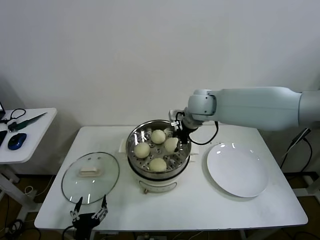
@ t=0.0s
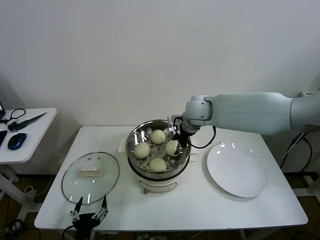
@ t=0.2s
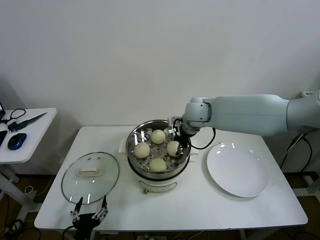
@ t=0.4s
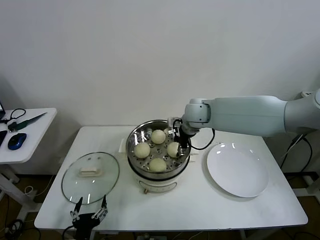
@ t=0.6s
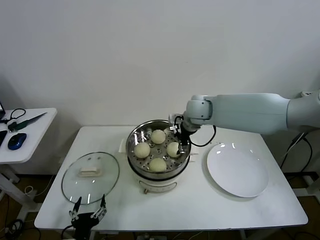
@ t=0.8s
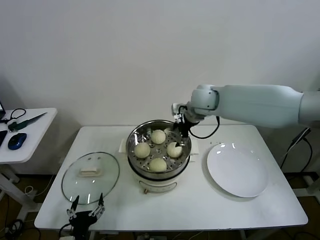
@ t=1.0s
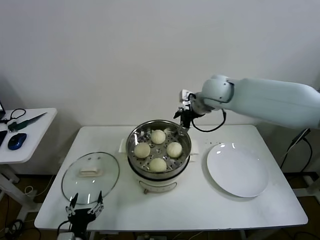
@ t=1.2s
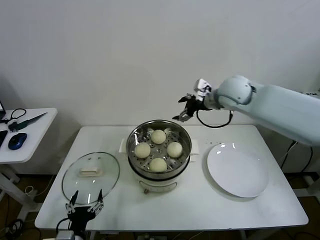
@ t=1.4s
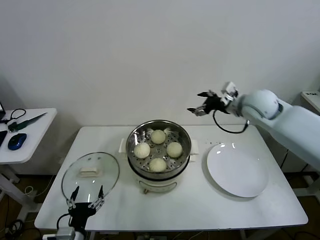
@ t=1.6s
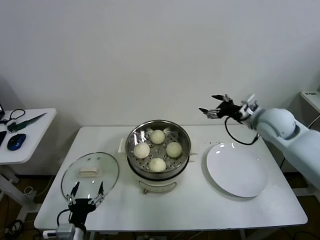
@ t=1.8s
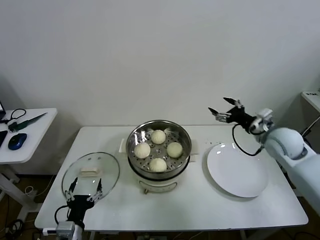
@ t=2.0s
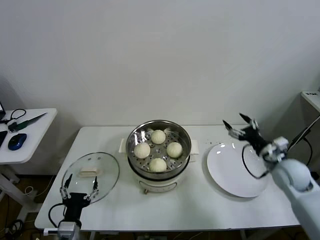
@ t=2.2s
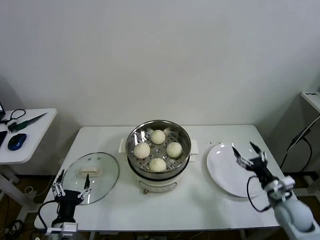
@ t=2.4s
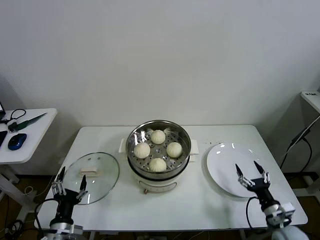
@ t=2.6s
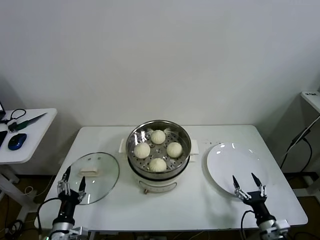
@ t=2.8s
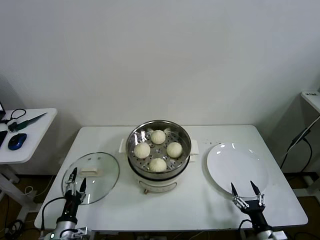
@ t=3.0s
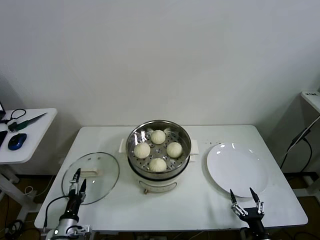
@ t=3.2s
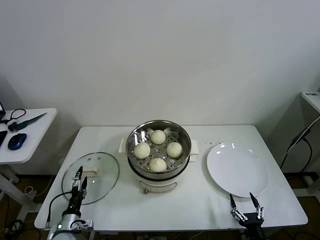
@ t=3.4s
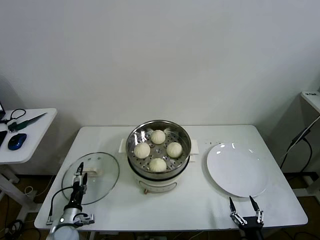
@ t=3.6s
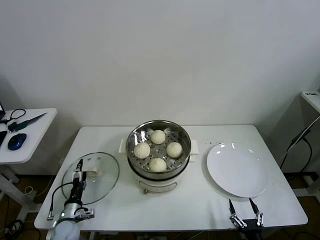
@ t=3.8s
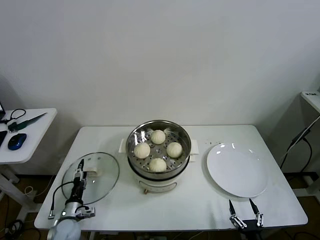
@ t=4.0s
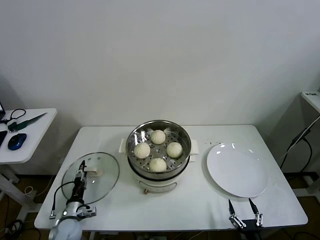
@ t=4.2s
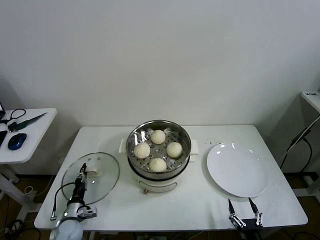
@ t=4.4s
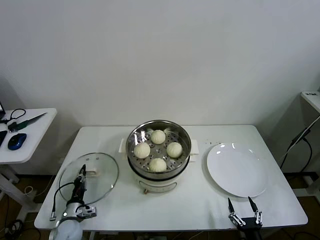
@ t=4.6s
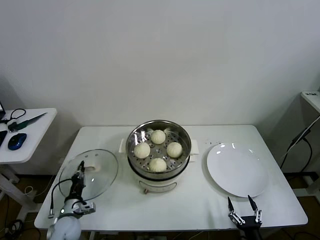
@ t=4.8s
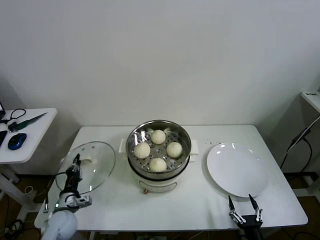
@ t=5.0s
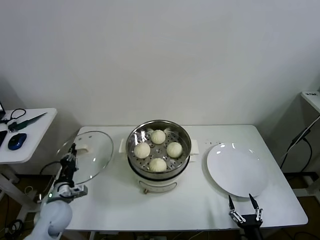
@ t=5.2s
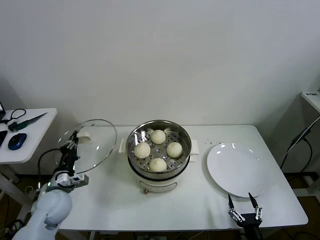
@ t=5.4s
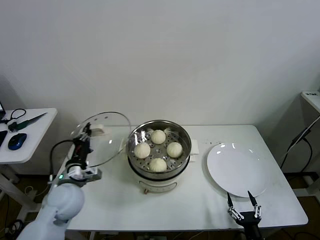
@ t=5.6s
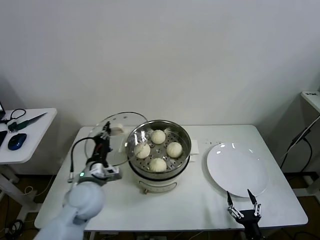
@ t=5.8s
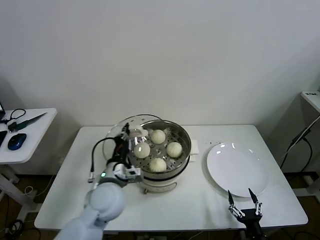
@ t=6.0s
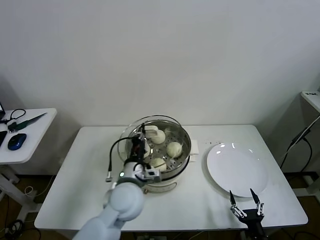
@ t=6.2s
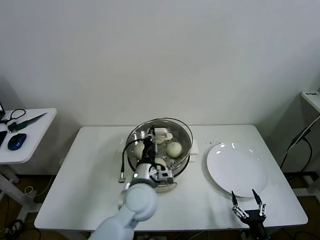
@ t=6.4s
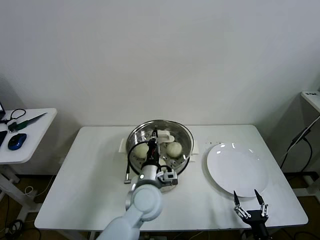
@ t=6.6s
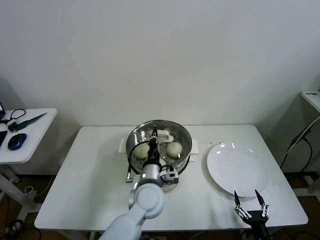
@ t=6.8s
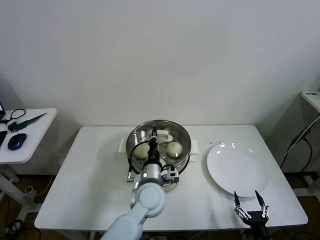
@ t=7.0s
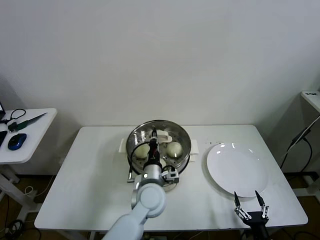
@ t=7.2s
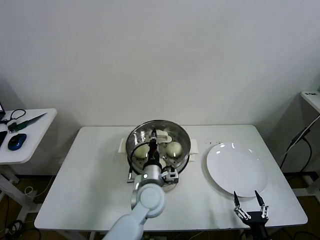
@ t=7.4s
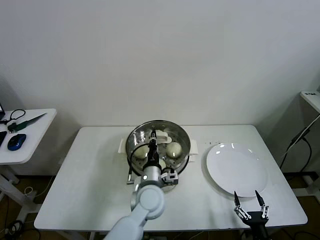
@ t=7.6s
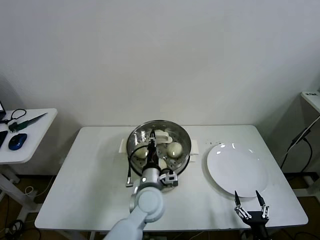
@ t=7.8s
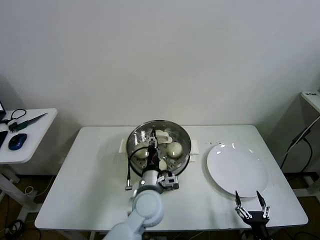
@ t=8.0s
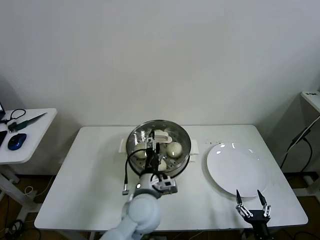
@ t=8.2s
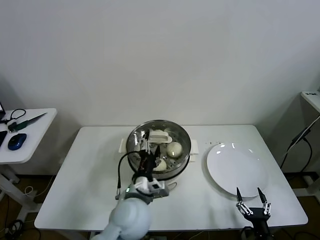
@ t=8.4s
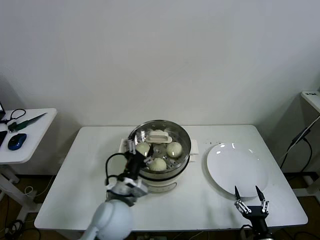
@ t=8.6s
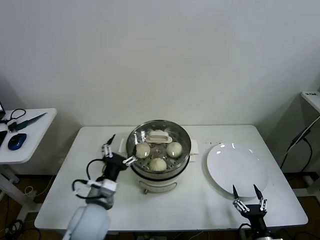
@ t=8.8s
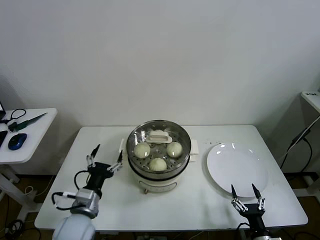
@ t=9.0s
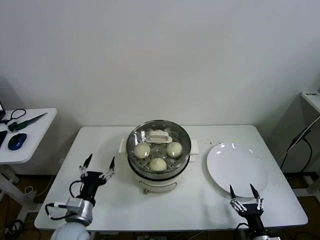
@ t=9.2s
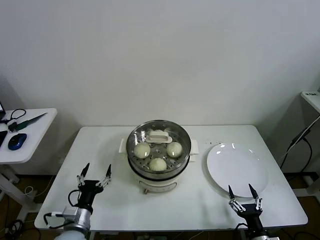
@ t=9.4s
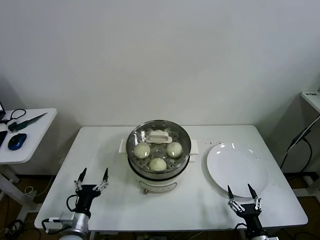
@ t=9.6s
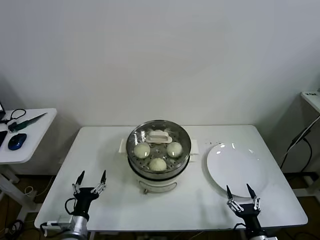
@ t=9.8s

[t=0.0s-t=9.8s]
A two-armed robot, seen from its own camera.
Task of the whole recording: take steamed baozi put them in steamer then cover it.
Step, t=1.0s to t=4.4s: Grasp the pot lid with left gripper.
Step, t=4.6s to t=7.6s: Place the pot lid on the steamer with left gripper.
t=0.0s to t=1.4s: The right gripper heads to the right, covering some 10 cm, and opens up.
t=1.4s to t=2.8s: The right gripper goes about 50 cm downward, backward and to the right. Meanwhile the left gripper heads to the left, covering approximately 5 cm.
t=2.8s to t=4.2s: The left gripper heads forward and downward, covering approximately 15 cm, and closes. Meanwhile the right gripper travels backward and to the left by about 10 cm.
t=4.2s to t=5.6s: The left gripper moves upward, some 20 cm, and closes its fingers.
t=5.6s to t=7.0s: The left gripper is displaced to the right by about 25 cm.
t=7.0s to t=8.4s: The left gripper shifts about 5 cm backward, and opens its fingers.
t=8.4s to t=9.8s: The left gripper is displaced to the left and downward by roughly 25 cm.

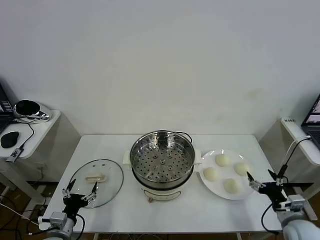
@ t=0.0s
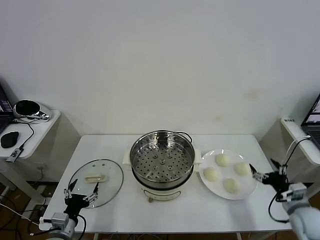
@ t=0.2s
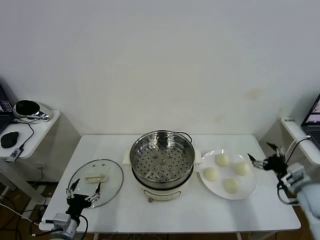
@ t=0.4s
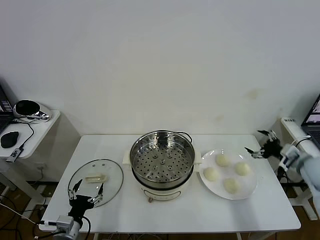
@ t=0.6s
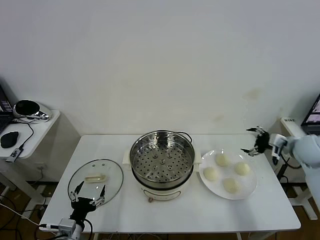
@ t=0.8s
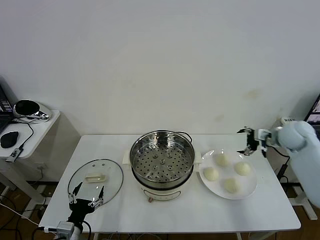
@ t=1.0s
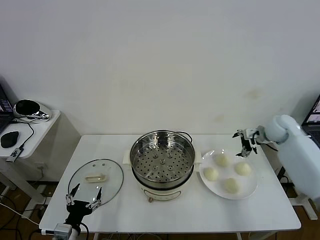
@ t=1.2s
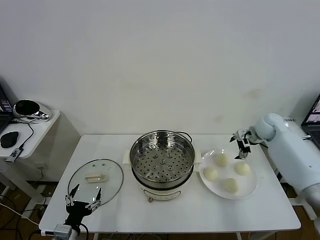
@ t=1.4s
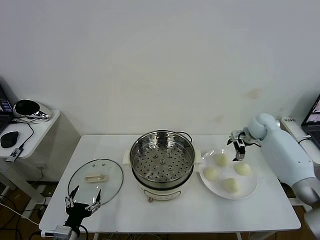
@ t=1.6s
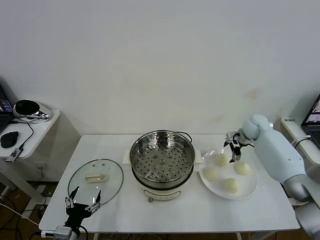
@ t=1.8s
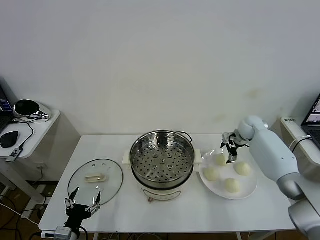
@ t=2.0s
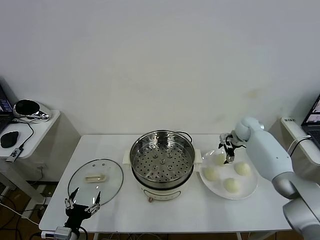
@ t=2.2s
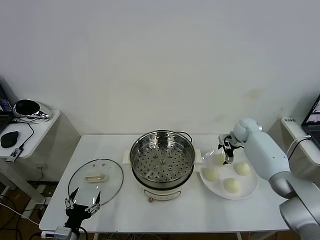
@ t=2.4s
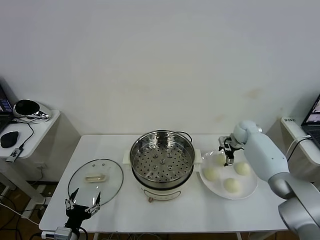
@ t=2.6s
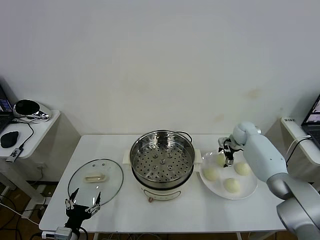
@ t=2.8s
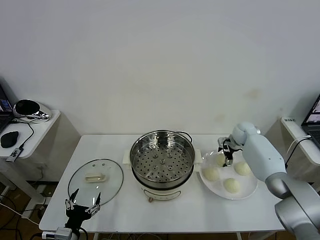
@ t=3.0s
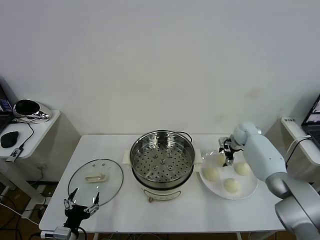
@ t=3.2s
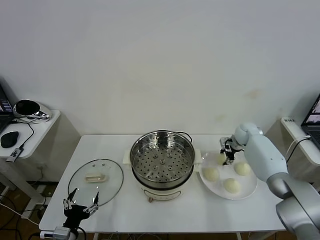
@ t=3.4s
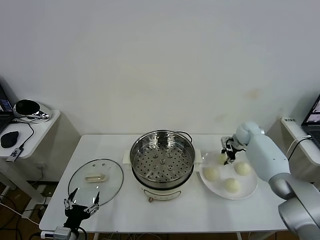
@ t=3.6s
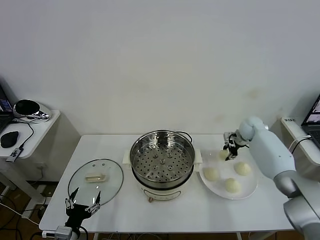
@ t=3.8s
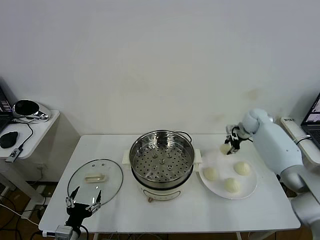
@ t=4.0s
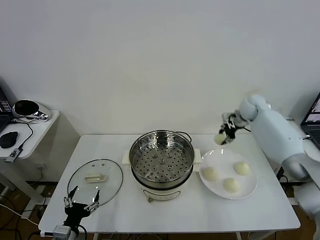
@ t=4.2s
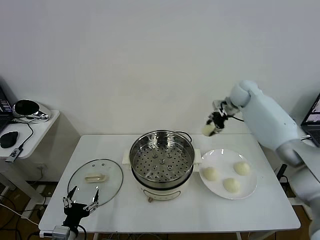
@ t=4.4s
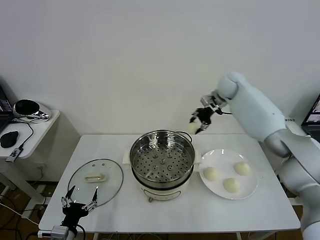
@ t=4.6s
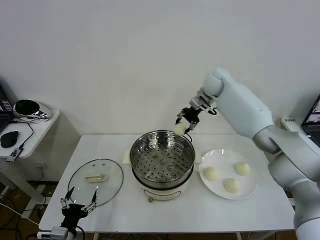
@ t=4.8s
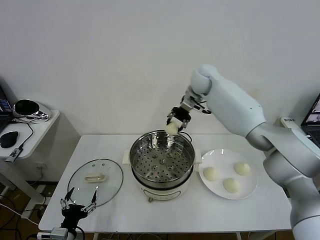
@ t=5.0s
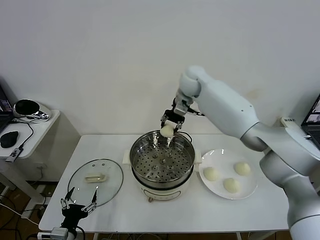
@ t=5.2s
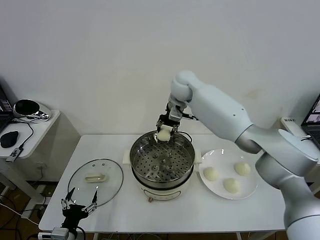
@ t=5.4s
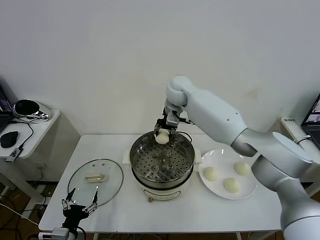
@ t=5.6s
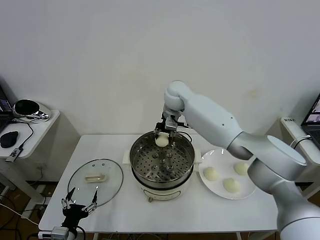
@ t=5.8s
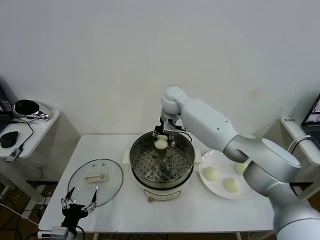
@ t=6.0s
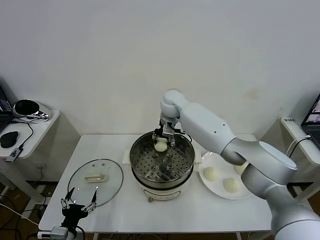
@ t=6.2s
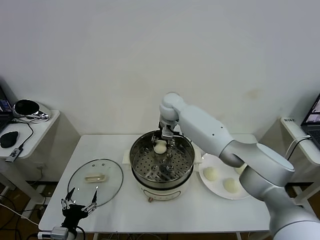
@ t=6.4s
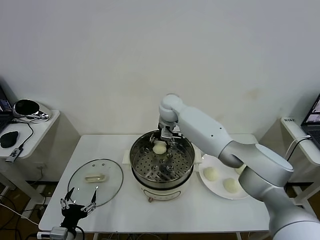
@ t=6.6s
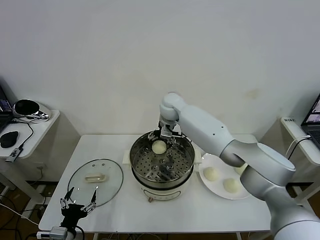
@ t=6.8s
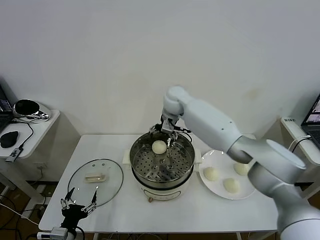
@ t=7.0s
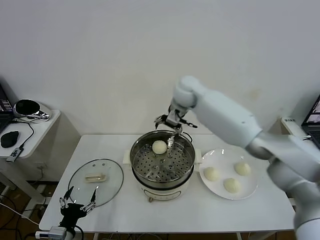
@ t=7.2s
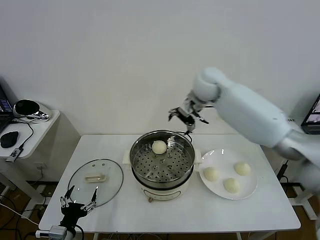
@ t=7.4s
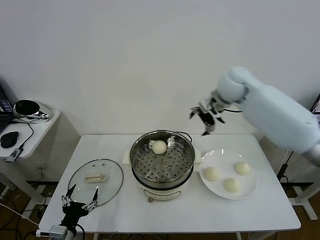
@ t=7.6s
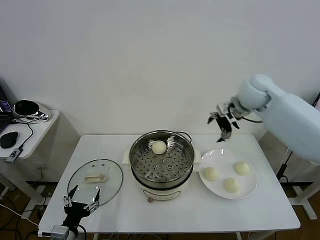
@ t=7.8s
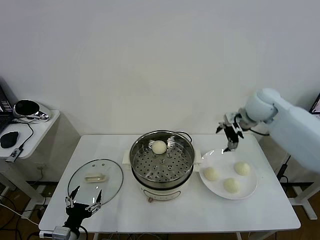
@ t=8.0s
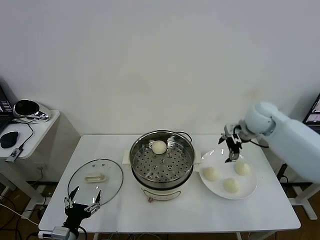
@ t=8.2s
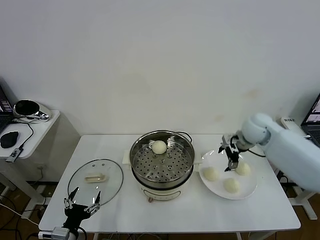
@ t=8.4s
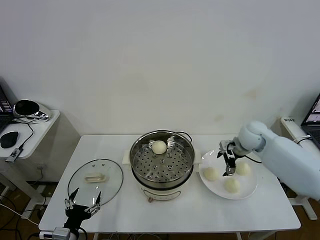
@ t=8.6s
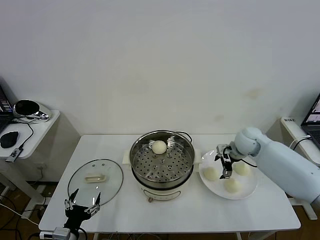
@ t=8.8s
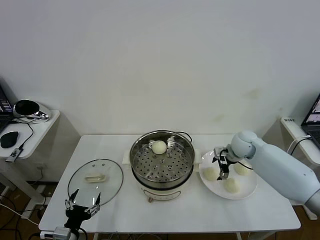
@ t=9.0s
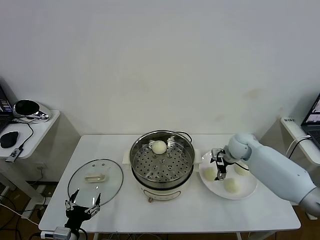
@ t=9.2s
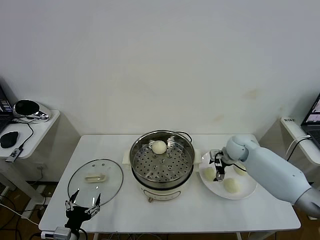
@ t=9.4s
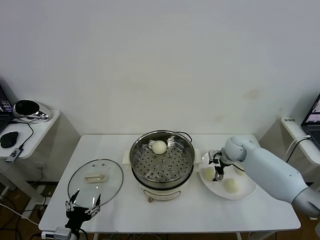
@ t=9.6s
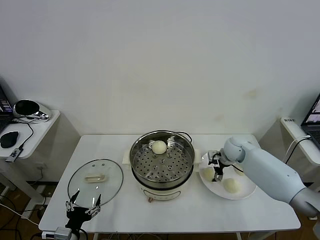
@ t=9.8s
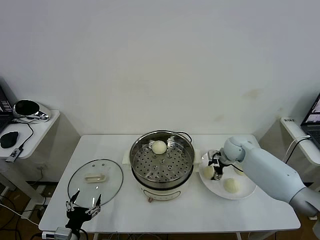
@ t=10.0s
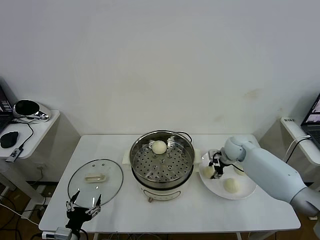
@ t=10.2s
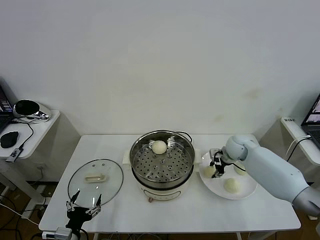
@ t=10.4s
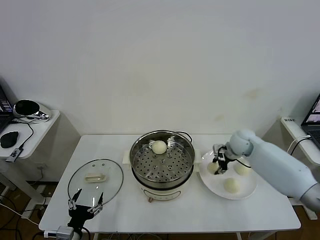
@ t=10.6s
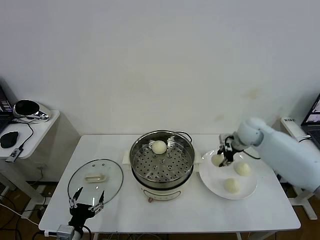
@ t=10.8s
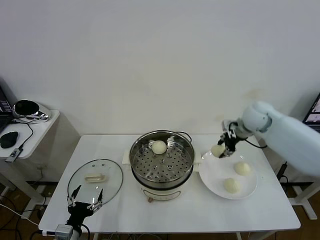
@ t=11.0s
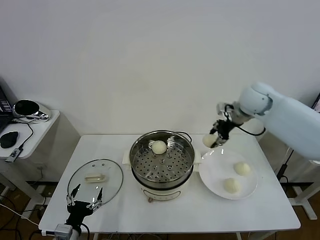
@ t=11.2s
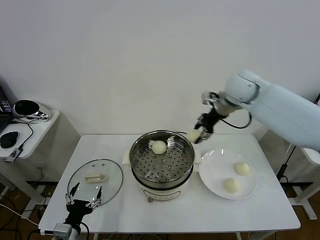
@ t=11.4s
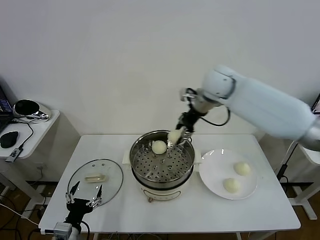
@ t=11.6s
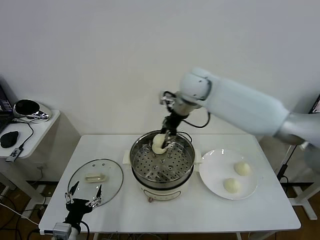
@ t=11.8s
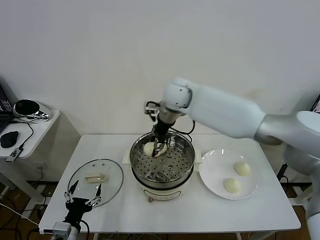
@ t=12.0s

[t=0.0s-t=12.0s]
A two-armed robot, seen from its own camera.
Task of the whole recording: take steamed baozi put them in steamer then cover it.
Step, t=0.0s to t=3.4s: Grasp the baozi in the plate with right gripper.
Step, t=3.6s to t=6.8s: Place the baozi on the steamer with right gripper.
Step, t=7.2s to t=10.0s: Grasp the baozi in the plate with right gripper.
t=1.6s to t=3.0s: The right gripper is displaced downward by some 5 cm.
t=3.0s to t=4.4s: The right gripper goes approximately 20 cm upward, and closes its fingers.
t=4.4s to t=6.0s: The right gripper shifts approximately 25 cm to the left.
t=6.0s to t=7.6s: The right gripper travels to the right and upward by roughly 20 cm, and opens.
t=7.6s to t=9.0s: The right gripper travels downward by roughly 20 cm.
t=9.0s to t=10.4s: The right gripper closes its fingers.
t=10.4s to t=12.0s: The right gripper shifts some 35 cm to the left and upward.
